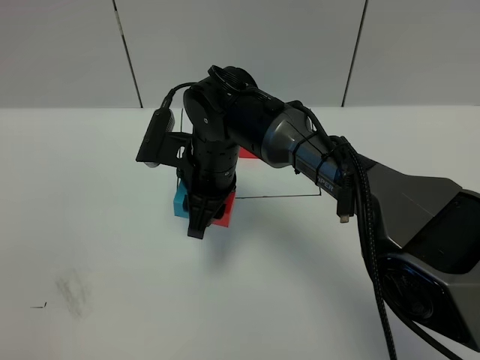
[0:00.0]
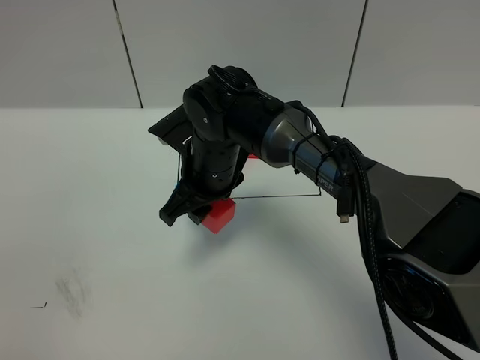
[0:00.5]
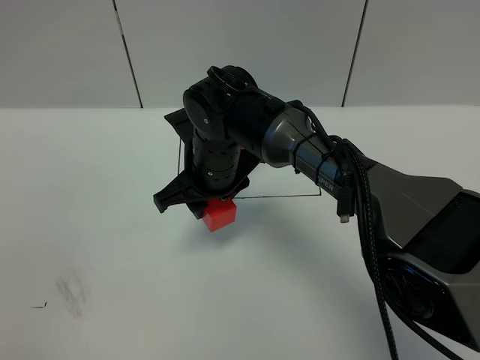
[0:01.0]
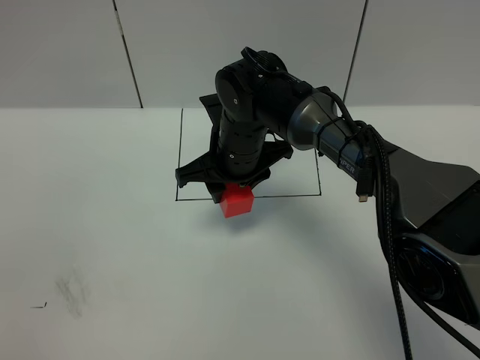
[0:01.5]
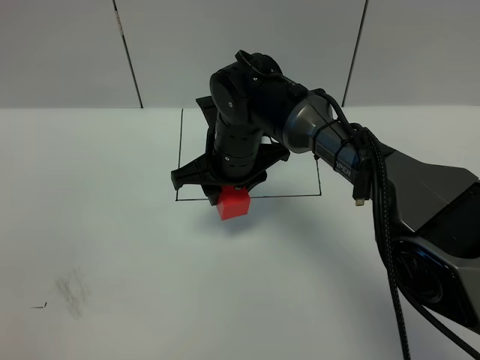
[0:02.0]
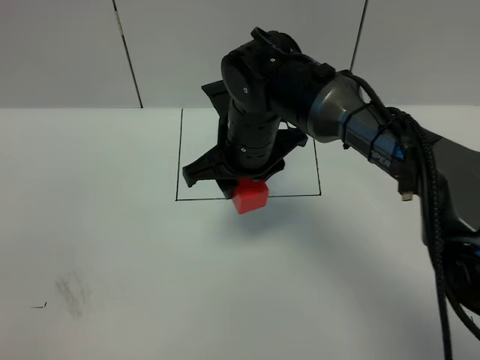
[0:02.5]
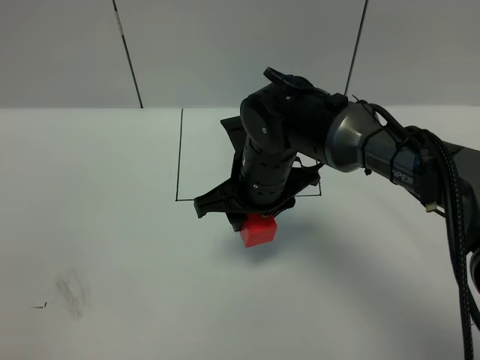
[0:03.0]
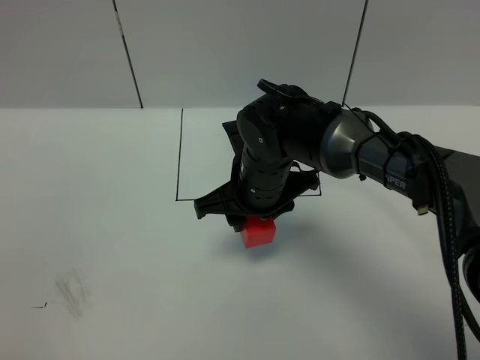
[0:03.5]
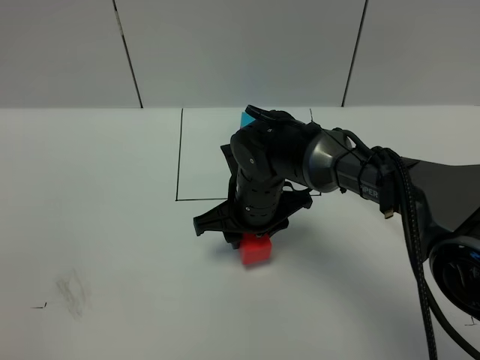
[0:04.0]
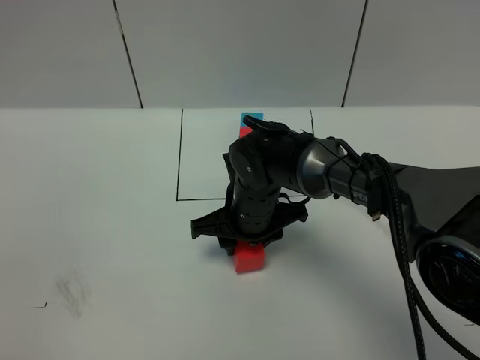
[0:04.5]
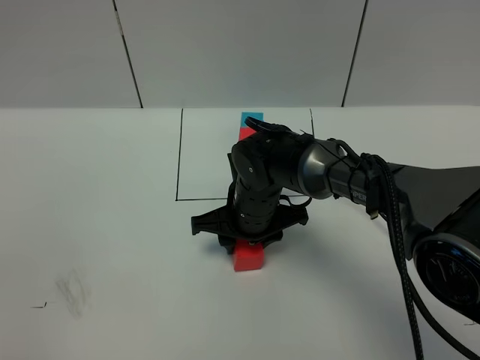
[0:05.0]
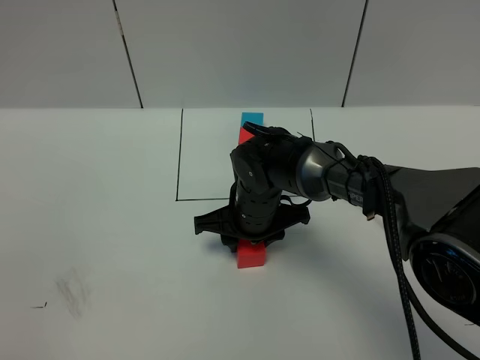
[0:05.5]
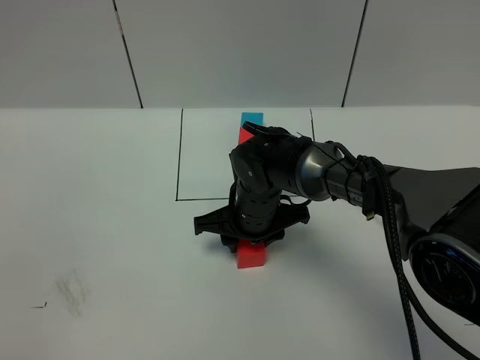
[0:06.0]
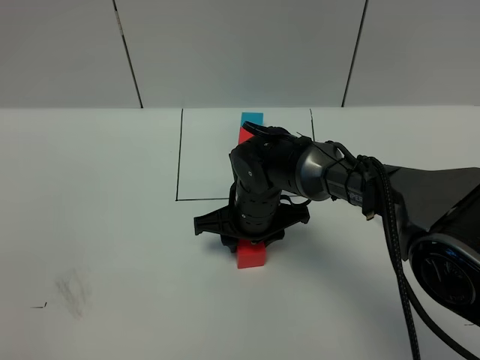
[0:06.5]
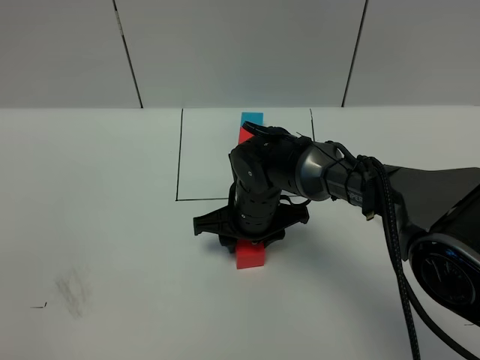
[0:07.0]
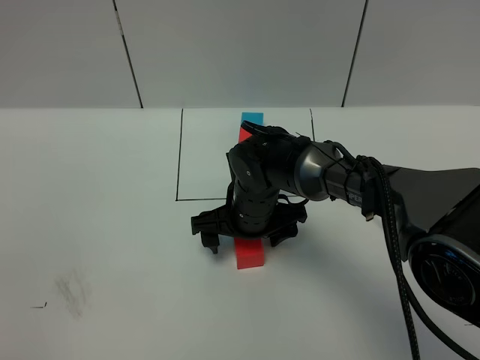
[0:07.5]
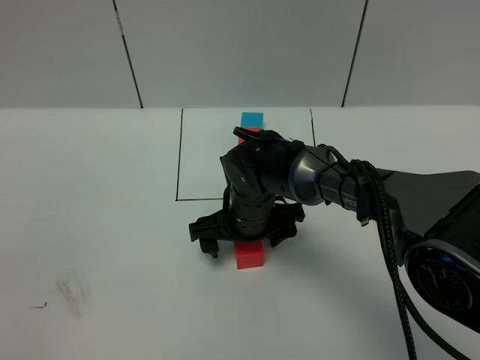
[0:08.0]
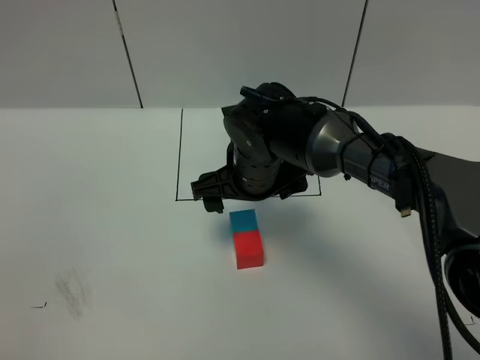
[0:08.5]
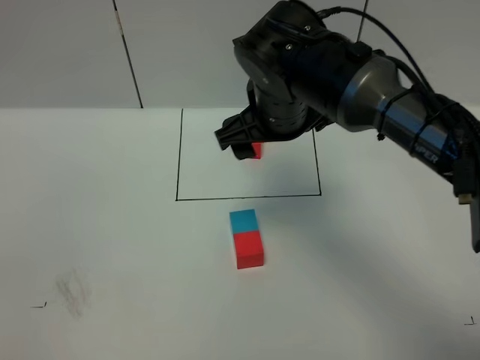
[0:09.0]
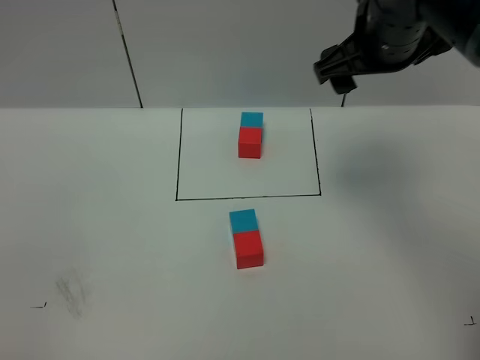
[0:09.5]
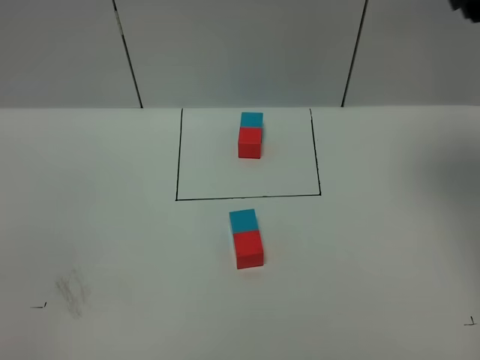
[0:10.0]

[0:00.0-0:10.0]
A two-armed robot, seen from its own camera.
Task of the whole recording: According to the building block template in front, assemble the scattered blocks together.
Step, 0:00.0 to 0:08.5: Adjust the pose of the building blocks.
0:02.0 to 0:04.0: The right gripper shifts by some 5 cm.
0:04.0 to 0:06.0: The grippers stay close to where they were, moving slightly.
0:06.0 to 0:08.0: The right gripper opens up.
0:08.0 to 0:10.0: The right gripper heads upward and to the right, covering some 40 cm.
